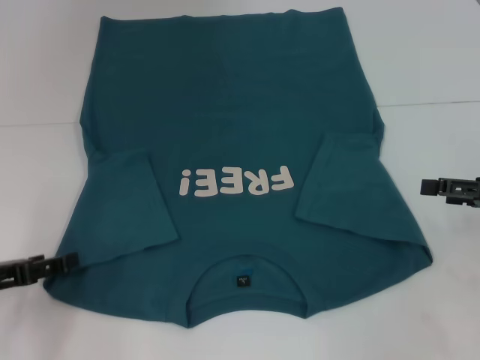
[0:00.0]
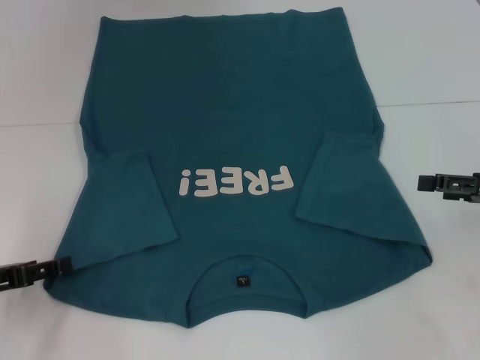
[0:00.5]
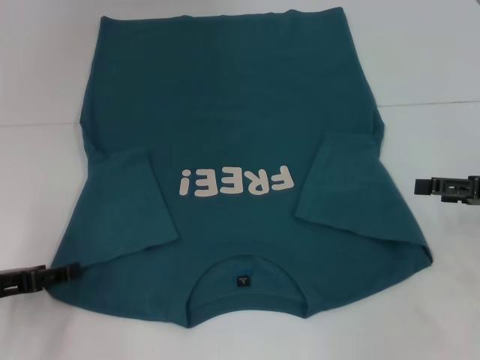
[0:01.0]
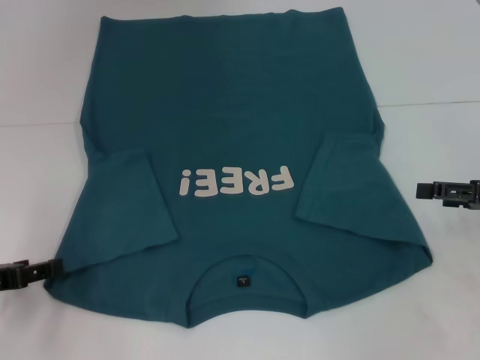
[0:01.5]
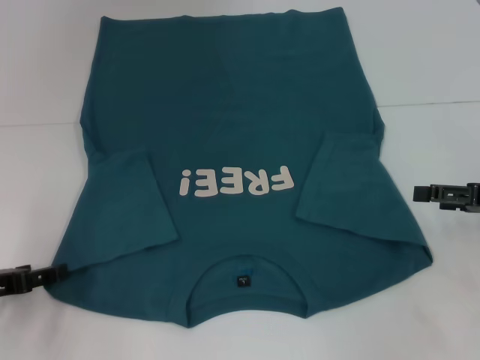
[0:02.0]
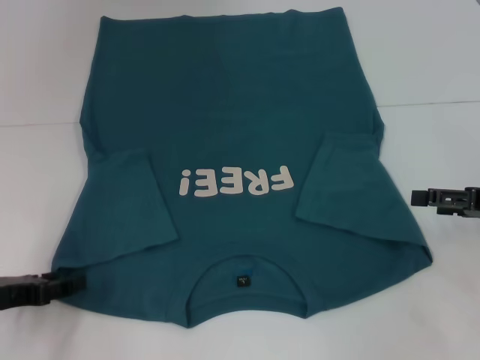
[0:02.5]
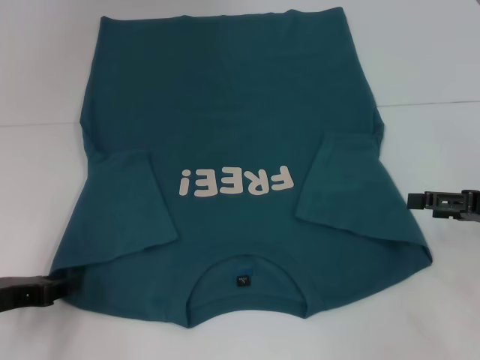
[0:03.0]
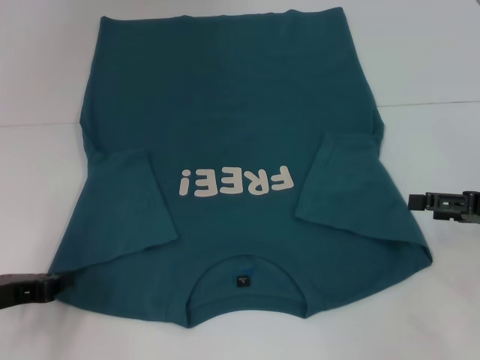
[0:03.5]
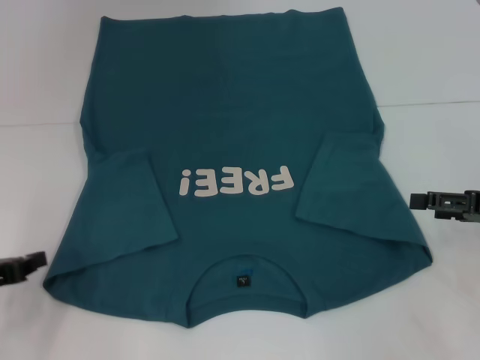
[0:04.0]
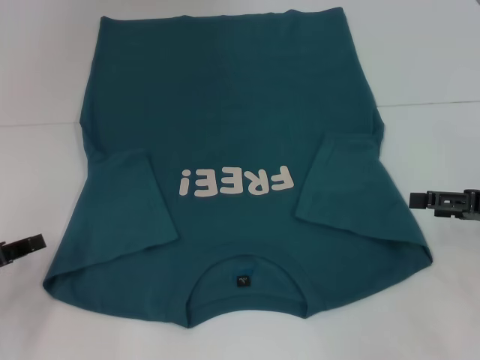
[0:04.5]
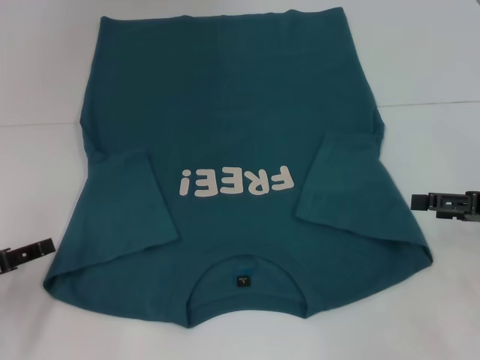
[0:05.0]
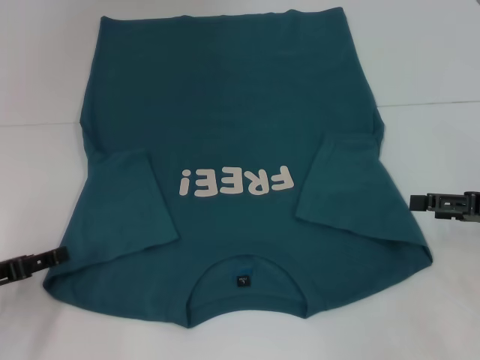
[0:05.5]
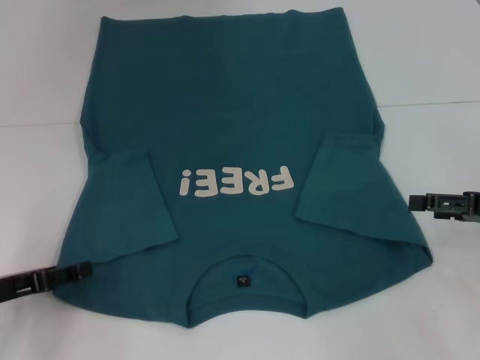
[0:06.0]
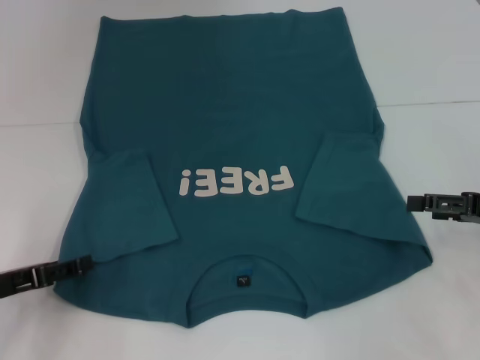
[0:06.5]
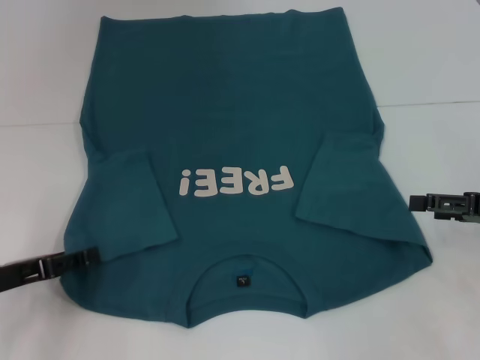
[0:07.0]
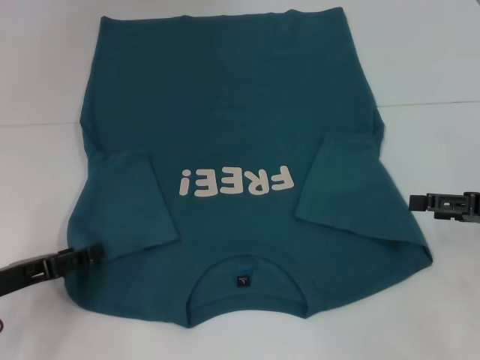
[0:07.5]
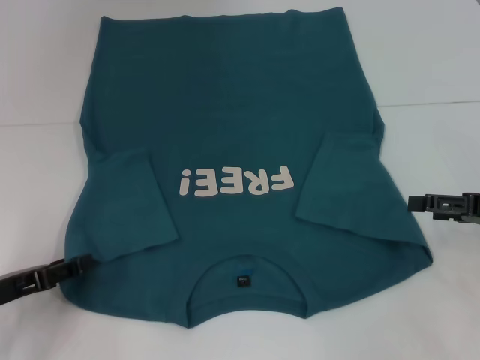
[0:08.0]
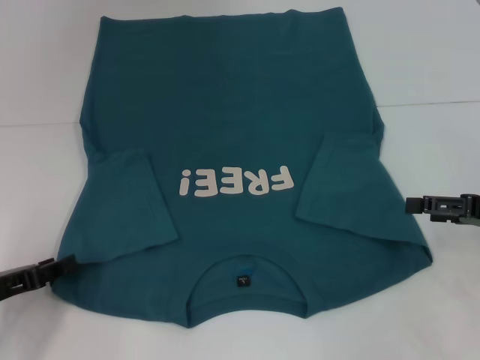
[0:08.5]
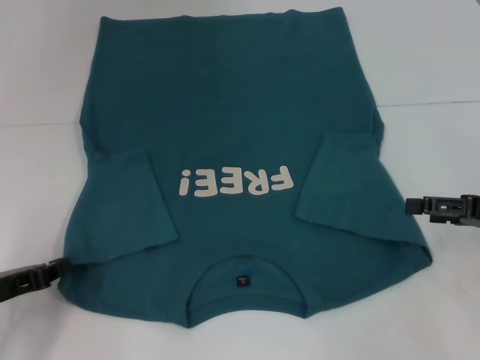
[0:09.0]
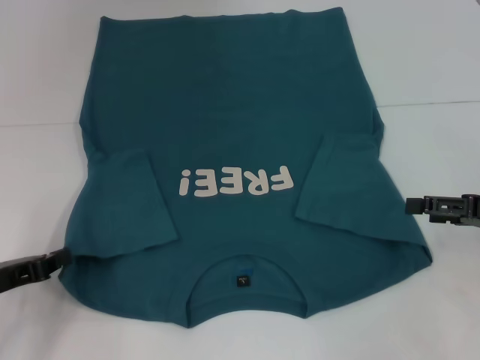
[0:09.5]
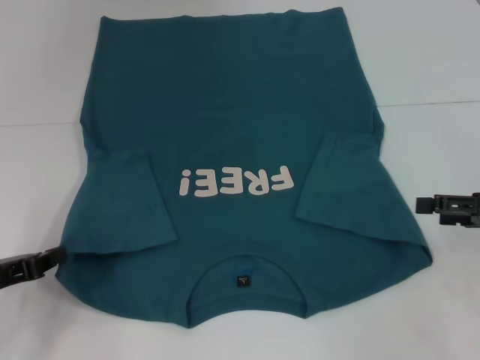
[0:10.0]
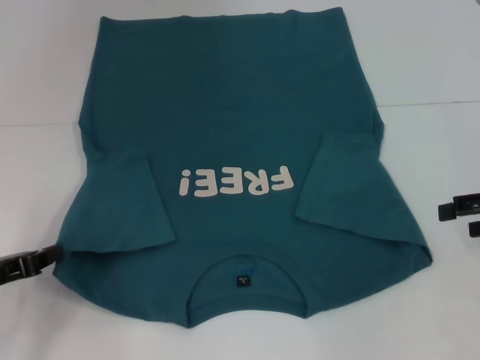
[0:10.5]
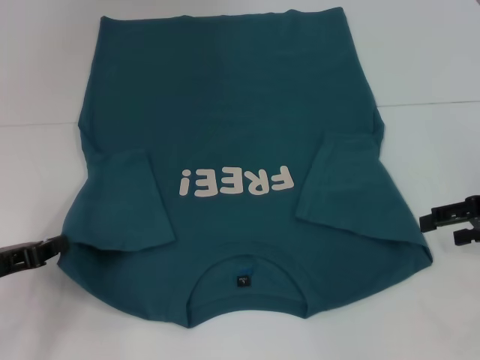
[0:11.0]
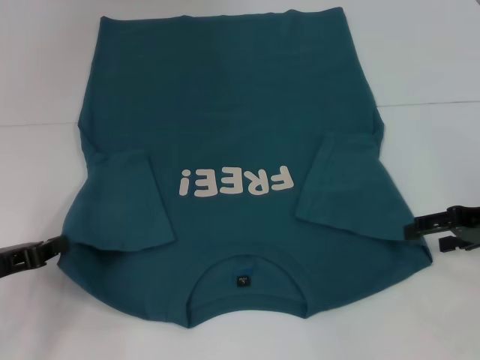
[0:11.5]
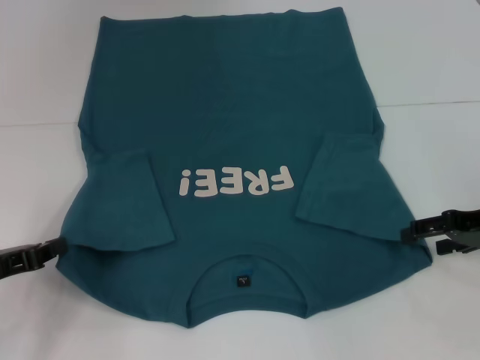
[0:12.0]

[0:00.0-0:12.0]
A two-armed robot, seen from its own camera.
Step, 0:00.0 to 0:09.5: Grab the bottom left corner with your left hand.
0:00.0 to 0:02.0: The grippers move only a little.
0:02.0 to 0:04.0: The left gripper closes its fingers.
0:04.0 to 0:06.0: The left gripper opens.
0:08.0 to 0:10.0: The left gripper closes up.

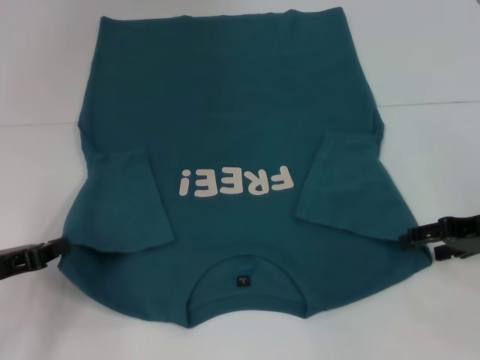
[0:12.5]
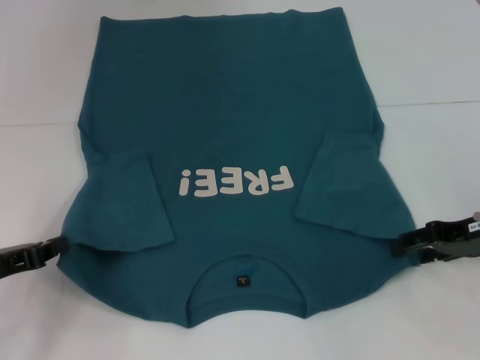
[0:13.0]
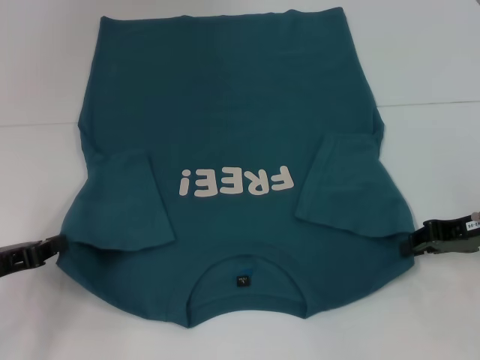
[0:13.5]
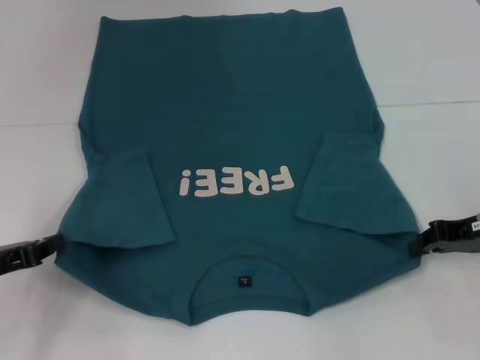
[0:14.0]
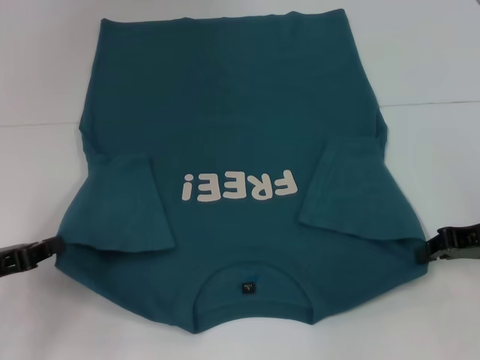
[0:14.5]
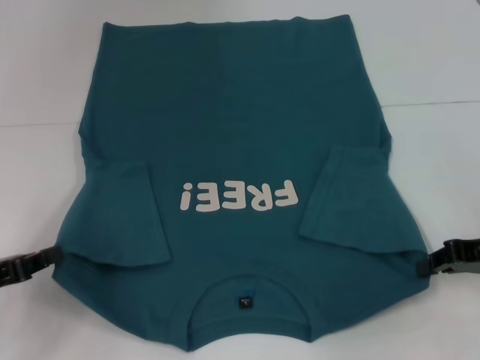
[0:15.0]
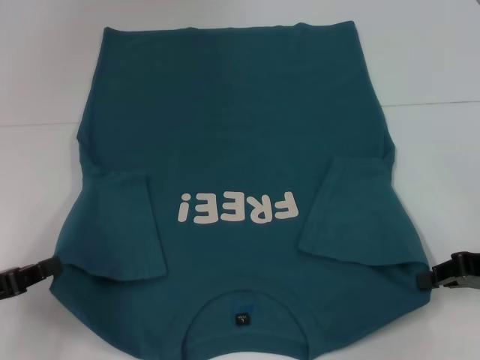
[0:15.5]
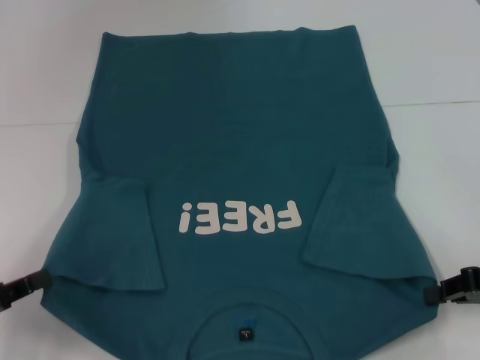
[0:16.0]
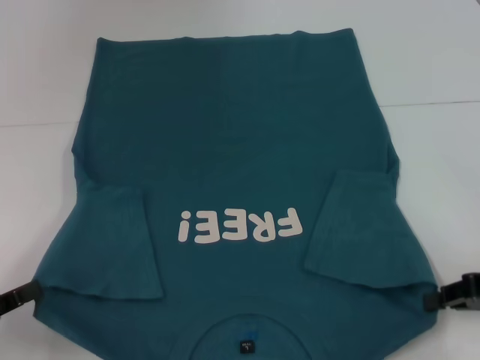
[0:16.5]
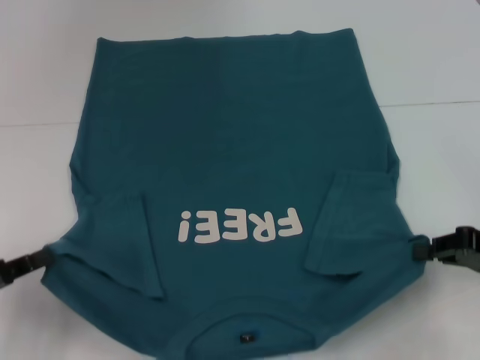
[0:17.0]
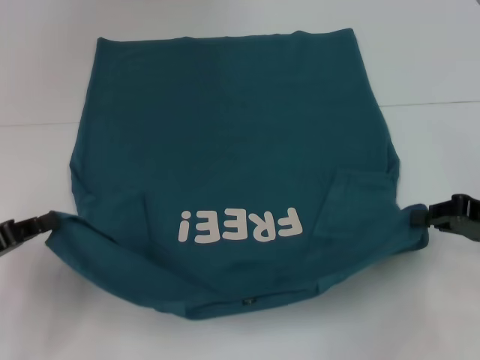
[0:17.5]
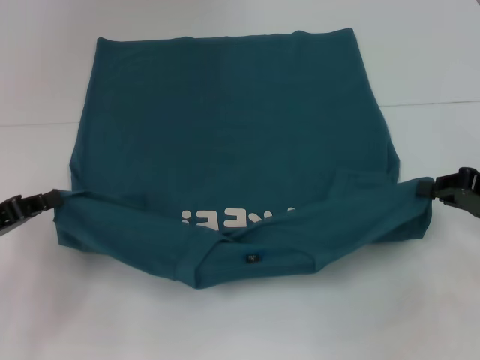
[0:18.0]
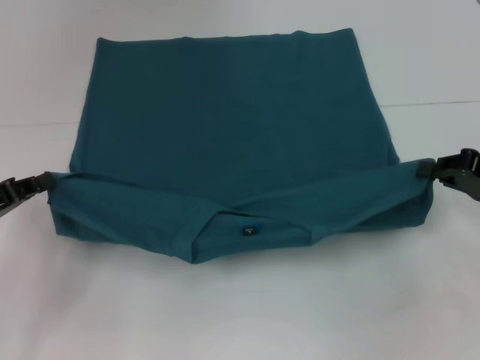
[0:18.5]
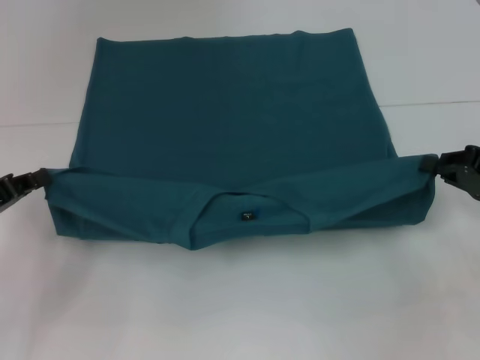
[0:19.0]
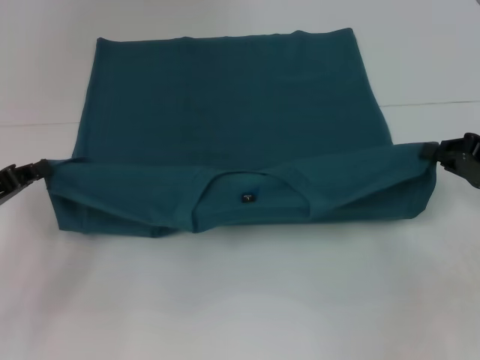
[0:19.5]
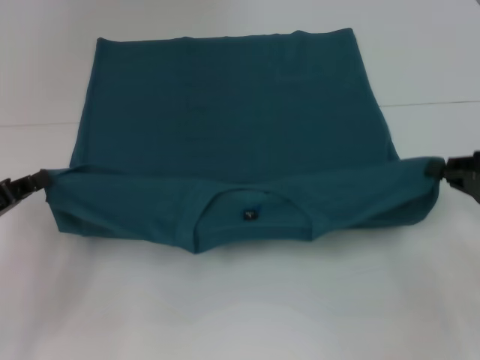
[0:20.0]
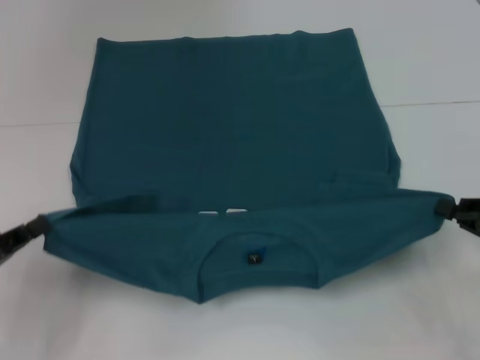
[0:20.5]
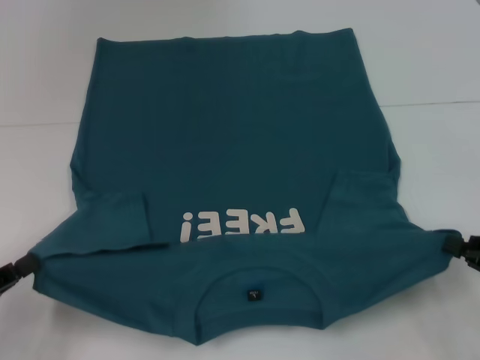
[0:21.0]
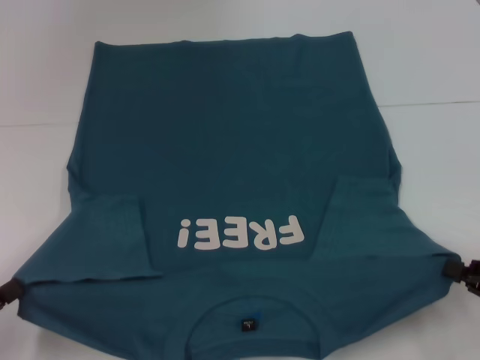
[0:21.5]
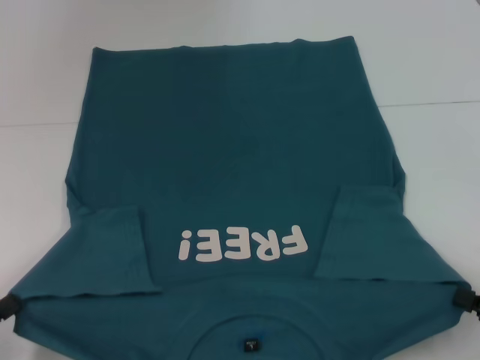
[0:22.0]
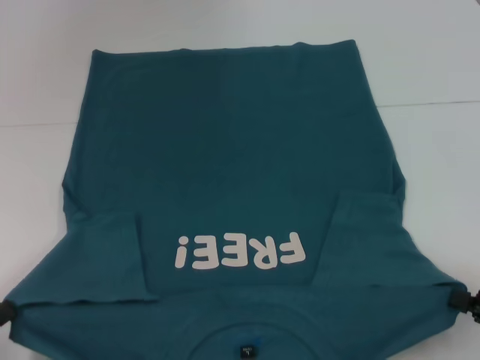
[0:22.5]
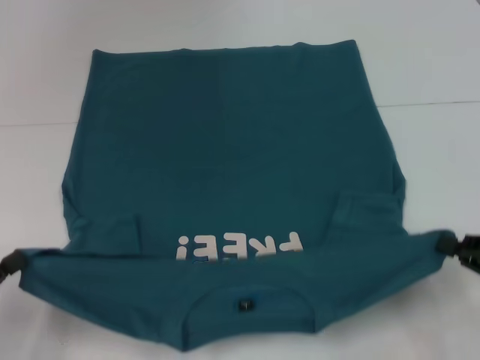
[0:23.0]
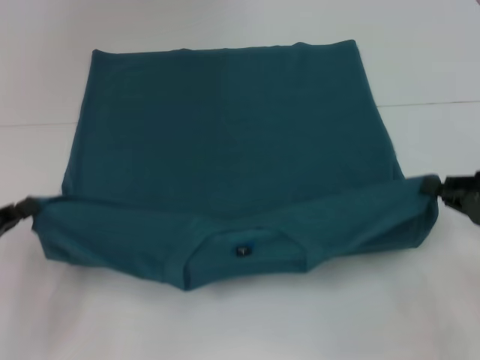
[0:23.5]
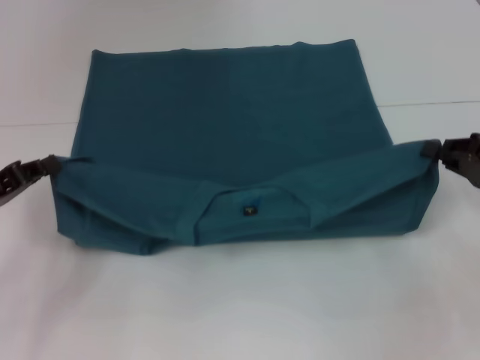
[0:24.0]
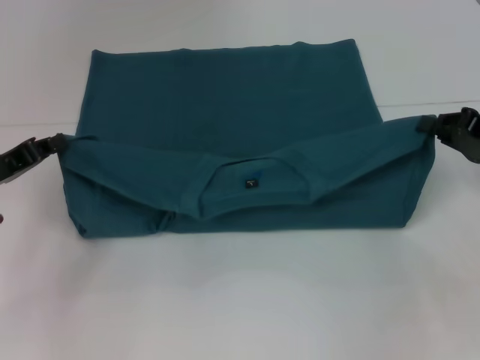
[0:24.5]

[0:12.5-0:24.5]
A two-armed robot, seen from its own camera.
0:12.5 to 0:14.5: The right gripper closes its fingers.
0:14.5 to 0:16.5: Both grippers move backward, some 5 cm.
0:16.5 to 0:18.5: The left gripper moves forward, some 10 cm. The right gripper moves forward, approximately 5 cm.
0:18.5 to 0:20.5: The two grippers go some 5 cm backward.
0:20.5 to 0:22.5: Both grippers move backward, roughly 10 cm.
0:22.5 to 0:24.5: The grippers both shift forward by about 20 cm.

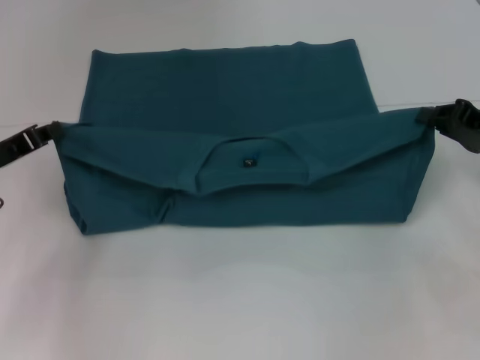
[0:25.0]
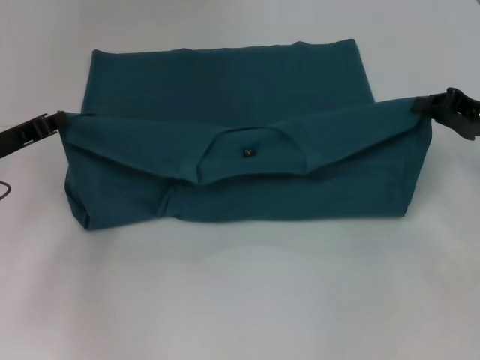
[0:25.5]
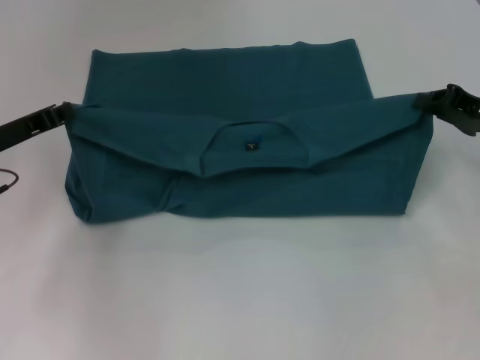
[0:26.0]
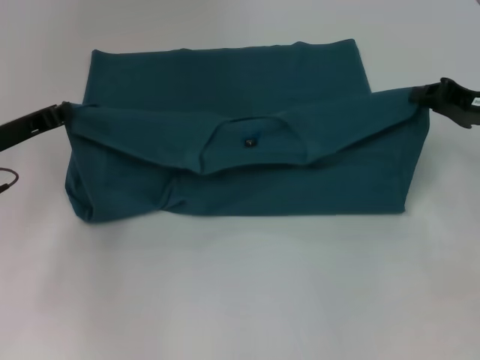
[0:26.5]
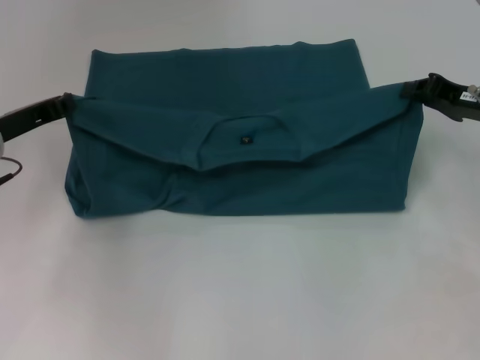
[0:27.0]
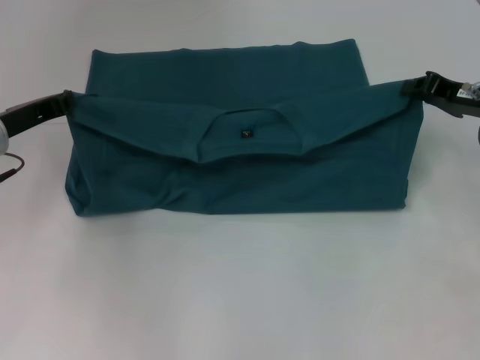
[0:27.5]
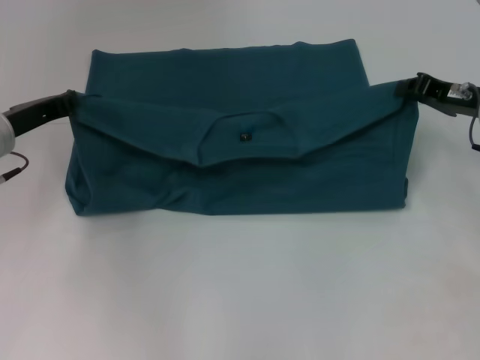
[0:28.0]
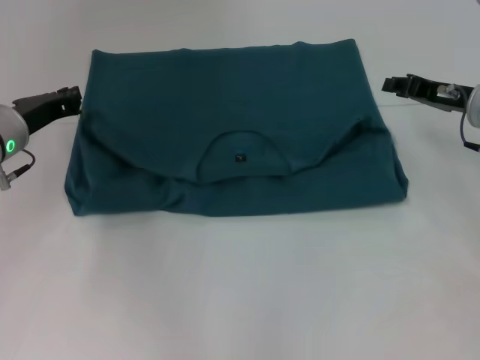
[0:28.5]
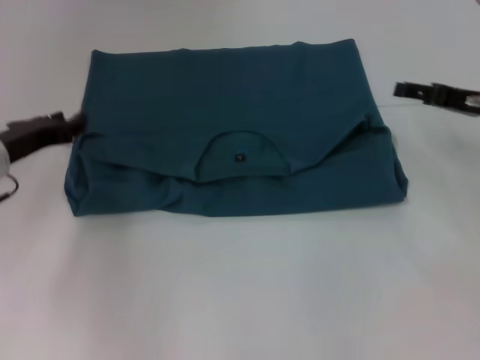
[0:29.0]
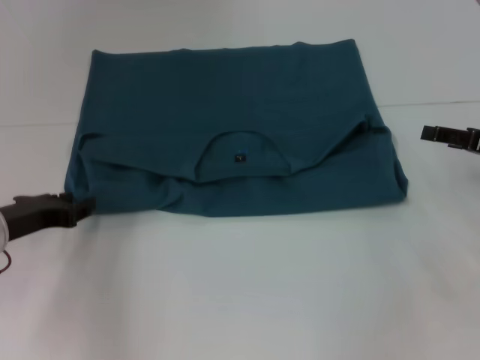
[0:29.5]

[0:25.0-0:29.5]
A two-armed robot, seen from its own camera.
Step, 0:25.0 to 0:28.5: Fold the clothes to the left.
Step, 0:25.0 to 0:28.5: Fold the clothes to the right.
0:25.0 to 0:27.0: The right gripper shifts by roughly 5 cm, while the left gripper moves roughly 5 cm.
0:27.0 to 0:29.5: Both grippers travel together backward, roughly 5 cm. The right gripper opens up, while the left gripper opens.
